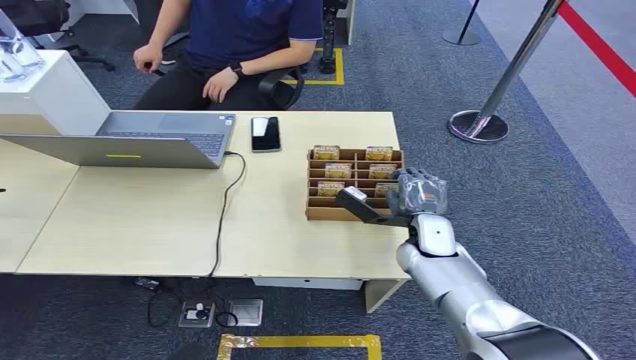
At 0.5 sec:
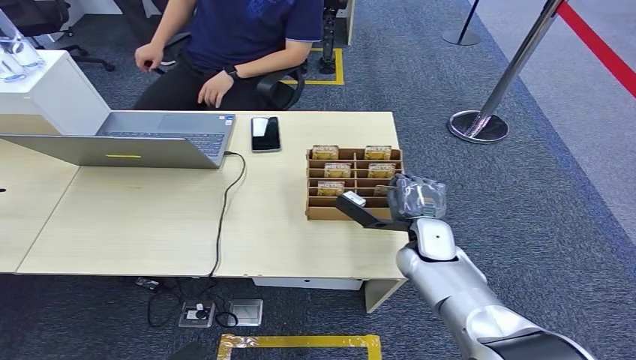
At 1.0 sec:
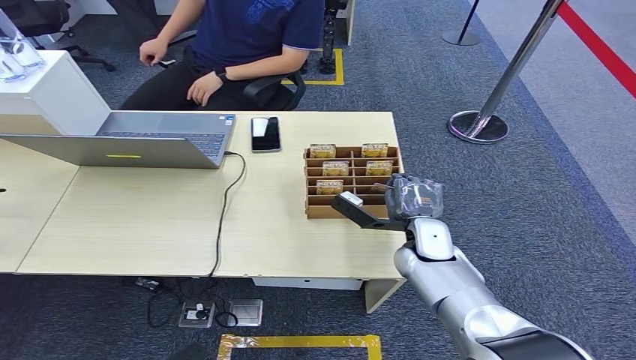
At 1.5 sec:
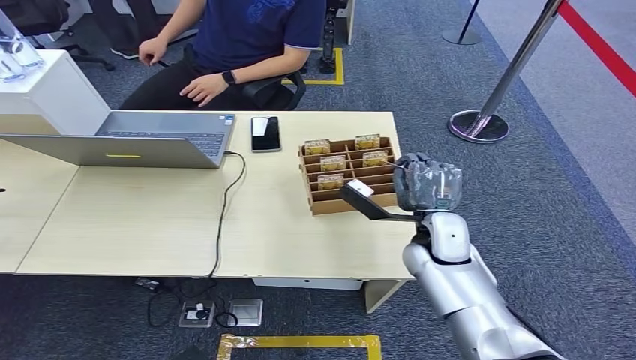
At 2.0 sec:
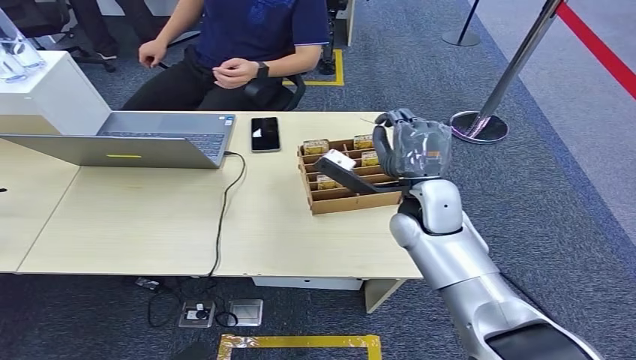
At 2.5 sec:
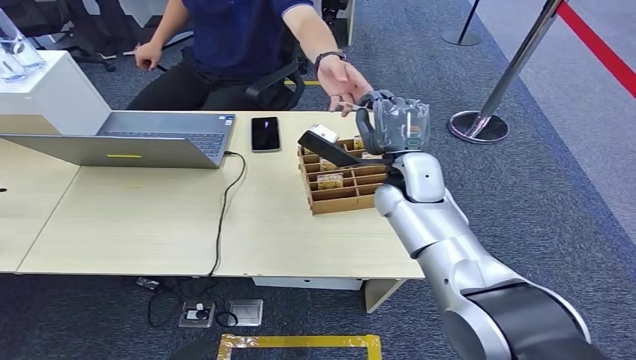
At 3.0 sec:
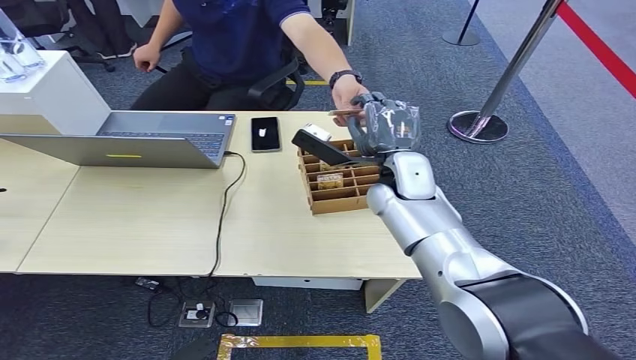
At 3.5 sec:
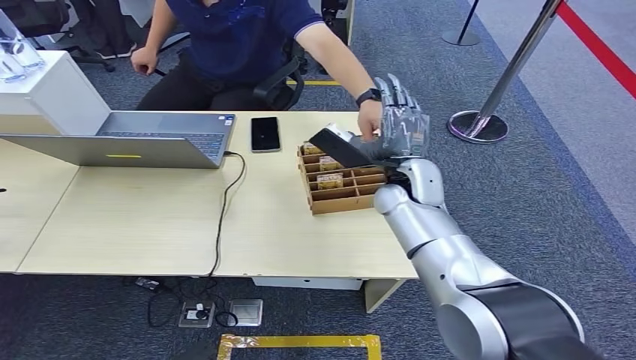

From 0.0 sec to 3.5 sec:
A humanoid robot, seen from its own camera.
Step, from 0.0 sec to 2.0 sec: Pick up the key card from the card box.
Step, from 2.5 sec to 3.5 sec: Hand the key card to the target.
From 2.0 sec to 3.5 sec: The right hand heads forward, covering some 5 cm.
